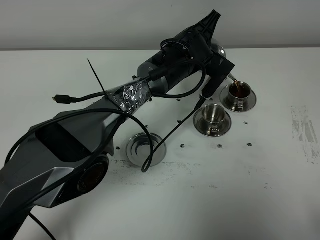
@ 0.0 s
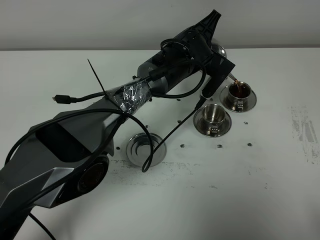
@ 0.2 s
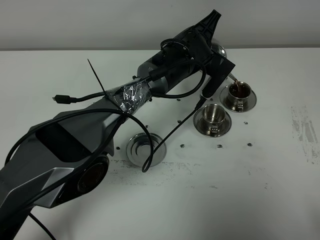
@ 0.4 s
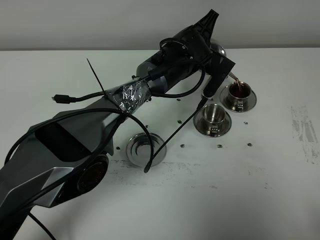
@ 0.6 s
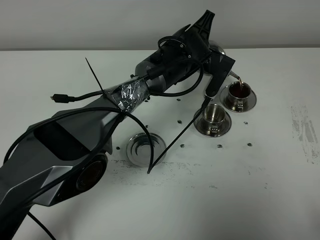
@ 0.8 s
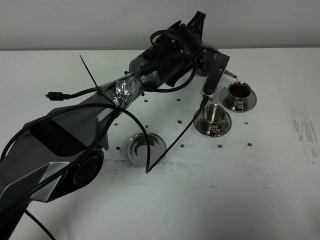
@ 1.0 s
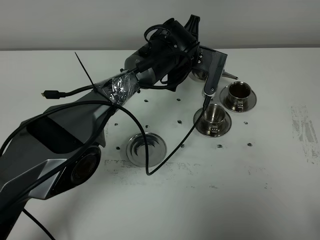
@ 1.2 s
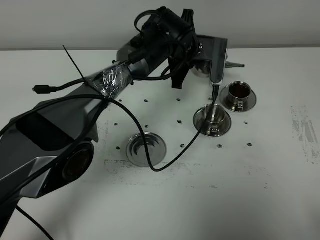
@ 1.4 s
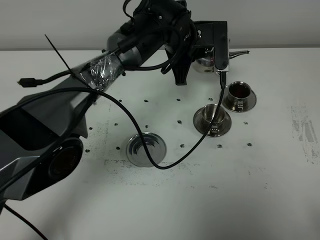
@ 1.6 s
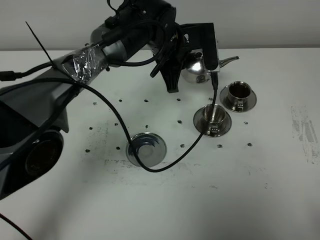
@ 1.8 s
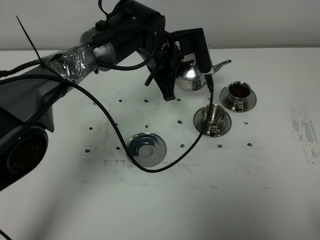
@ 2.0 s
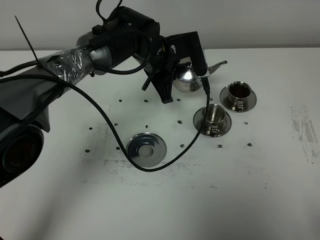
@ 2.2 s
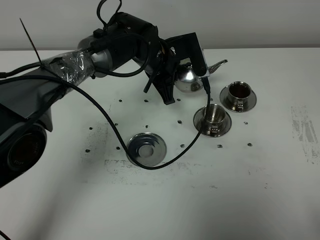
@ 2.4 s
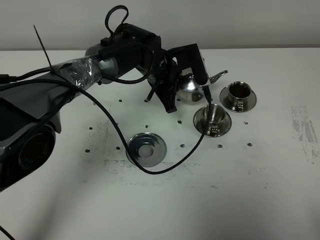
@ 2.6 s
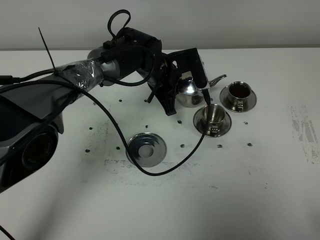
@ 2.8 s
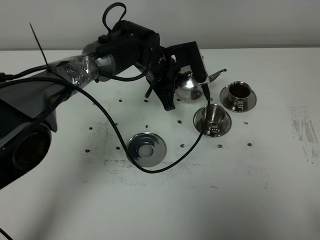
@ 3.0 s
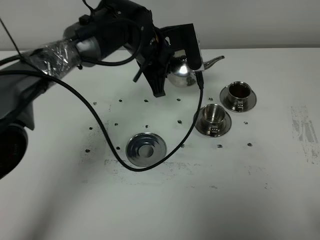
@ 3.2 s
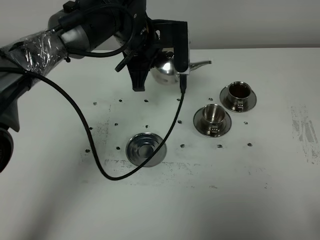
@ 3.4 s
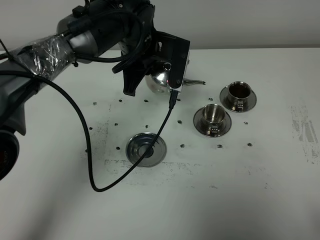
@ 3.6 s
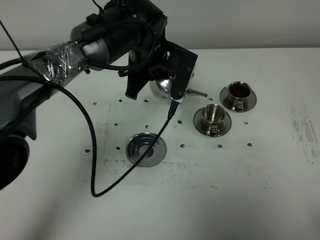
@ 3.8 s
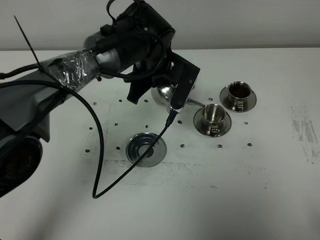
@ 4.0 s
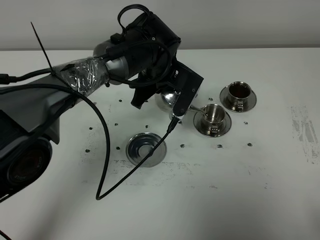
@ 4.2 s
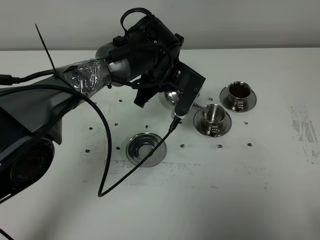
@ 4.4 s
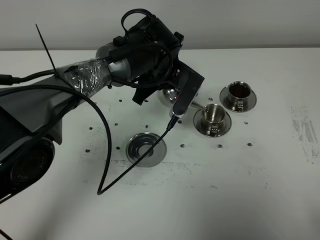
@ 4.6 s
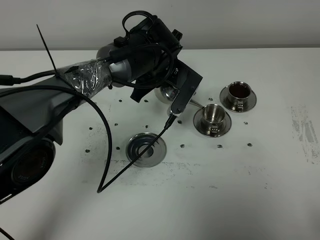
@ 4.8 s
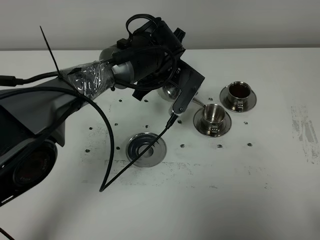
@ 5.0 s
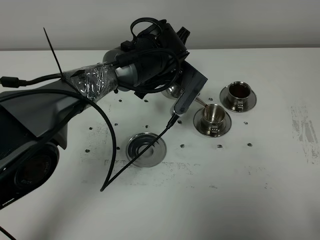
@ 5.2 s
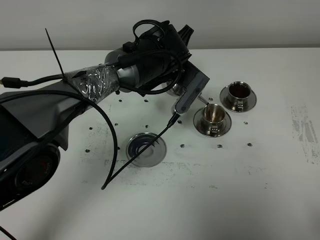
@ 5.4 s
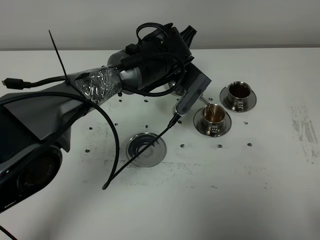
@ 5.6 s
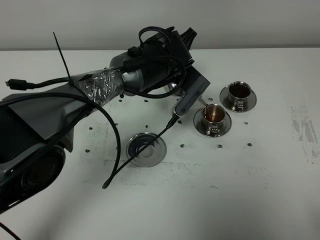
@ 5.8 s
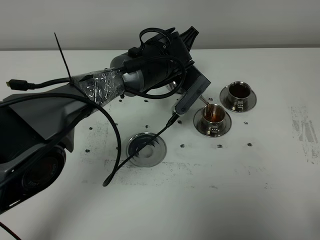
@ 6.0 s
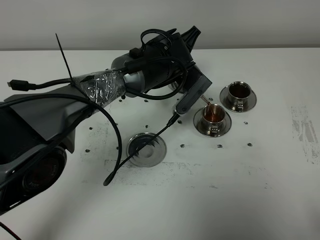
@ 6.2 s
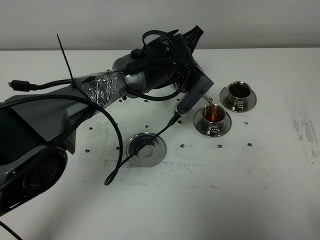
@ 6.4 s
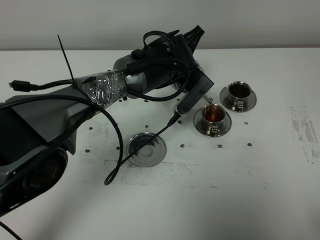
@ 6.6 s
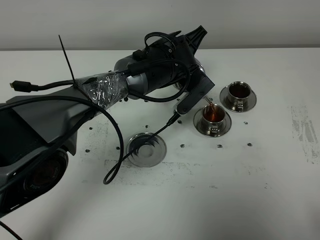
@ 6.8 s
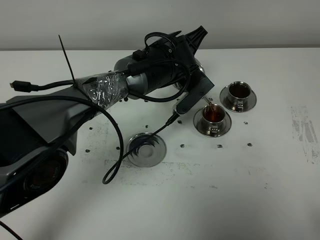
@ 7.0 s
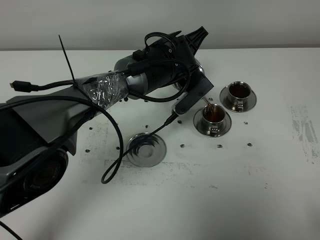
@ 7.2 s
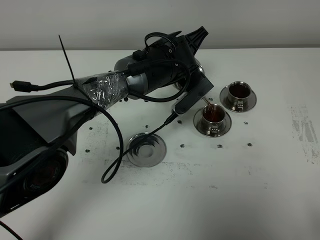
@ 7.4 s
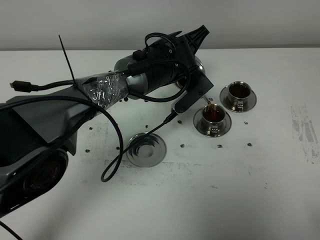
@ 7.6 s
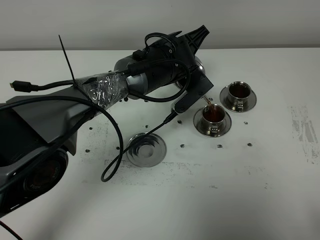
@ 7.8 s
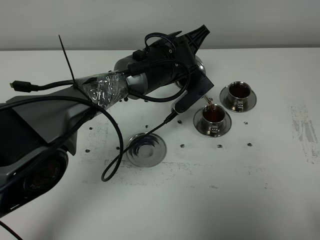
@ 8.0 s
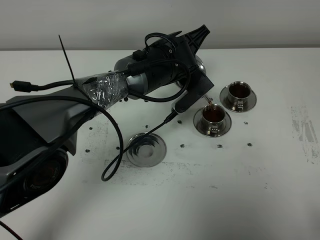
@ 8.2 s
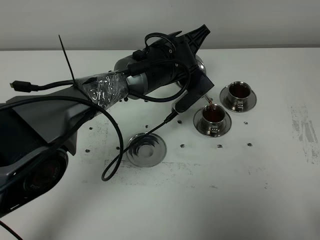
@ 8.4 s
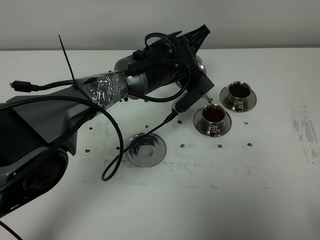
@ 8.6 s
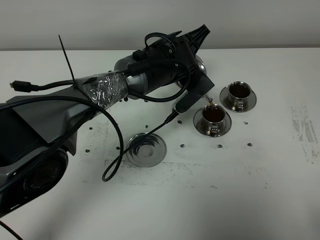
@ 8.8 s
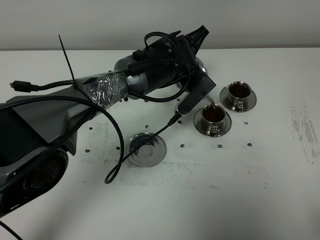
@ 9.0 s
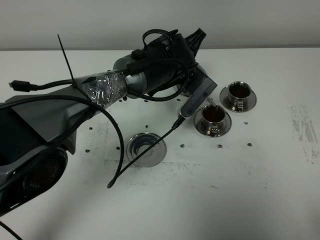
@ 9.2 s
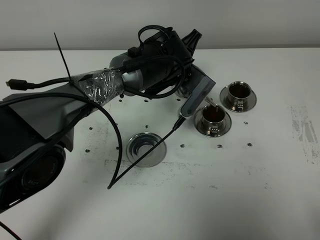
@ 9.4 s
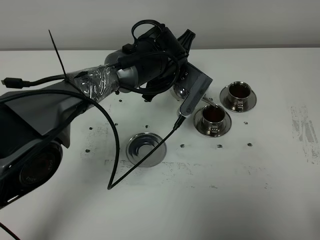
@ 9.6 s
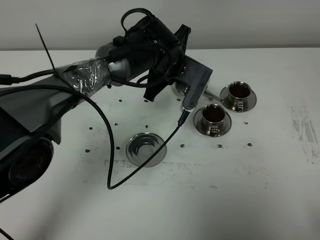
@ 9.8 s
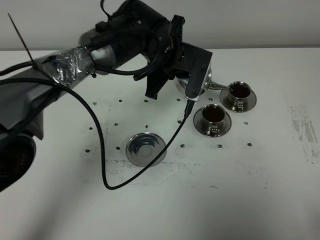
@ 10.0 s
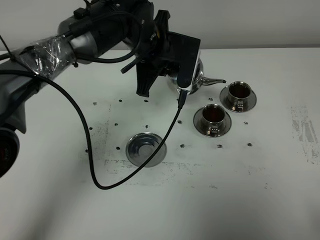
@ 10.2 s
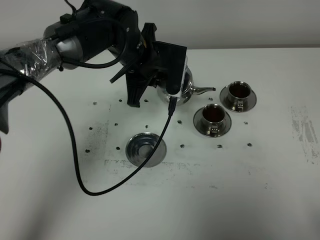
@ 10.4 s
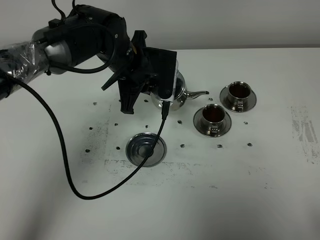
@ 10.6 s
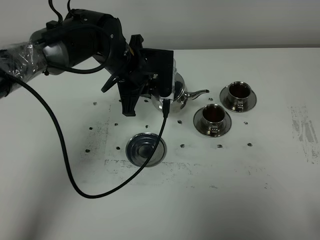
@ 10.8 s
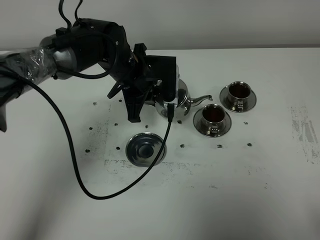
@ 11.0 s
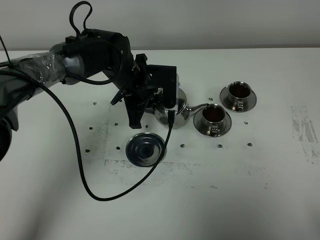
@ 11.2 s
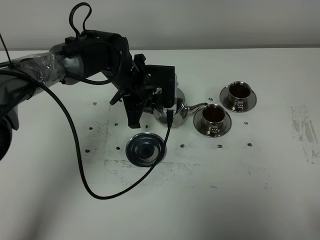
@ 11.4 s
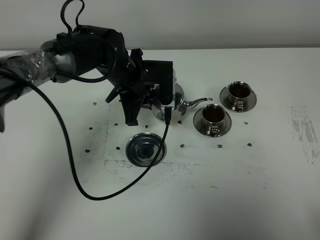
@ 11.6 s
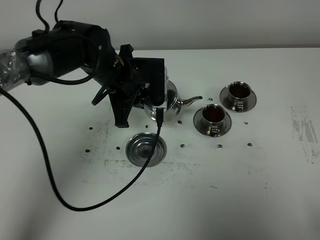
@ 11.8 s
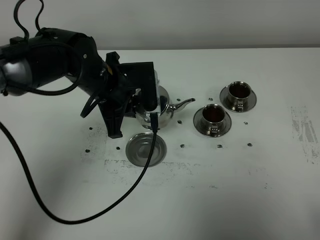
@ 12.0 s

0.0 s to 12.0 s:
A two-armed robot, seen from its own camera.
Task of the whole recording: grasp the stainless steel teapot and pour the tea into the two stainless steel teacups one by one, put the stainless steel teapot back in its original place.
Step, 1.4 to 9.8 s: Pour tea into the teacup with the left gripper.
0.0 to 1.6 s: The left gripper moves roughly 5 cm.
1.6 to 3.0 s: The left gripper changes place by approximately 5 cm.
4.4 to 6.0 s: The grippers move only a little.
6.0 to 7.6 s: There are only small adjustments of the grippers.
7.6 to 9.0 s: Both grippers stay put.
9.0 to 10.4 s: The left gripper is displaced to the left by some 10 cm.
10.4 to 12.0 s: The left gripper goes approximately 10 cm backward and to the left.

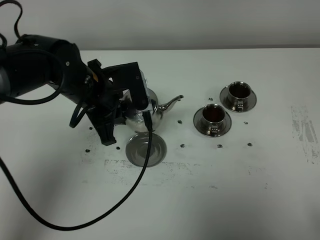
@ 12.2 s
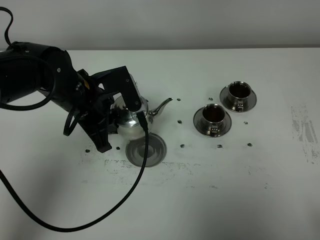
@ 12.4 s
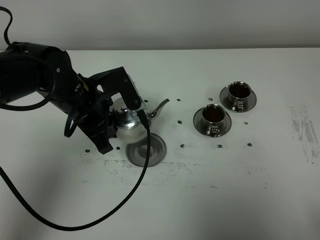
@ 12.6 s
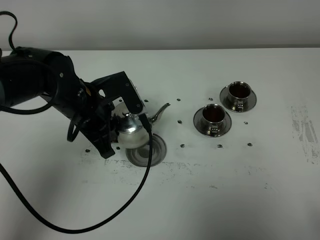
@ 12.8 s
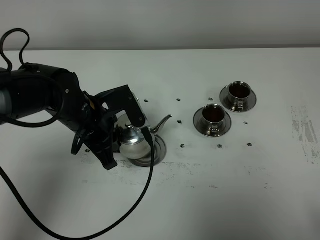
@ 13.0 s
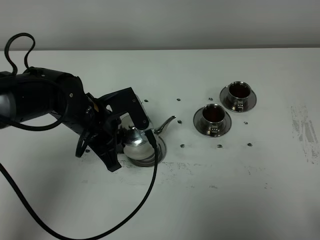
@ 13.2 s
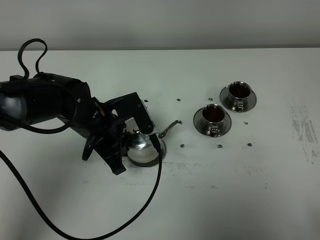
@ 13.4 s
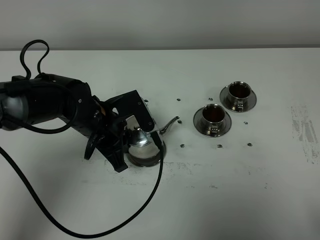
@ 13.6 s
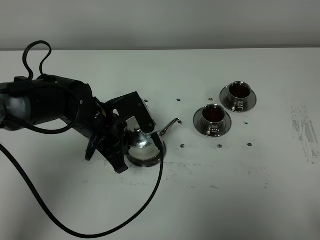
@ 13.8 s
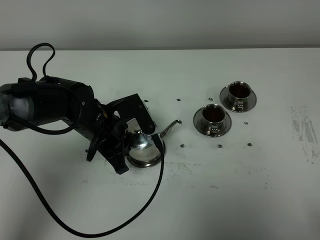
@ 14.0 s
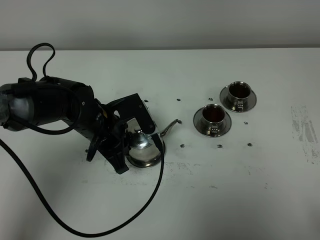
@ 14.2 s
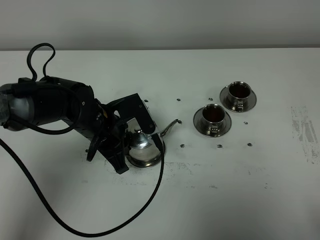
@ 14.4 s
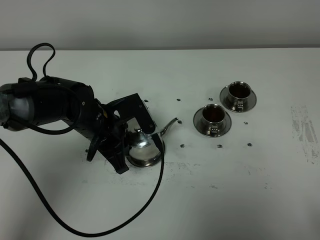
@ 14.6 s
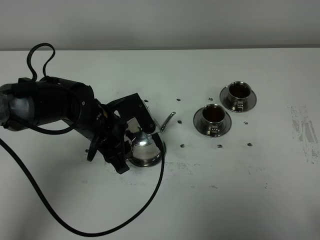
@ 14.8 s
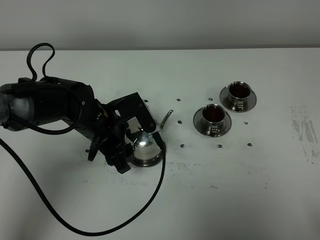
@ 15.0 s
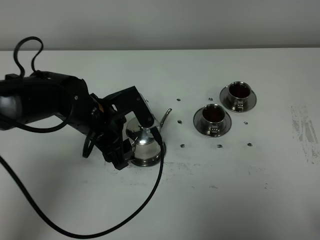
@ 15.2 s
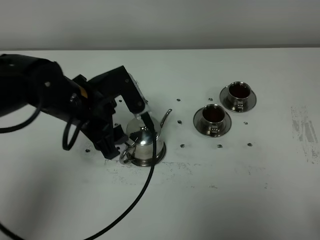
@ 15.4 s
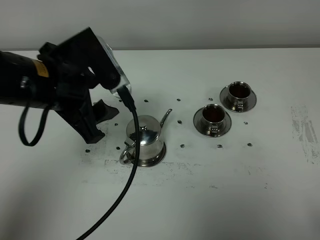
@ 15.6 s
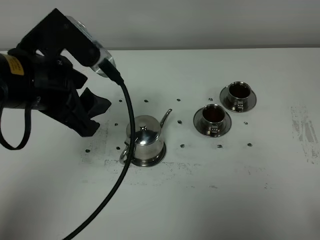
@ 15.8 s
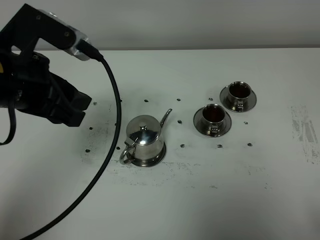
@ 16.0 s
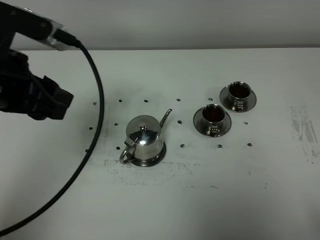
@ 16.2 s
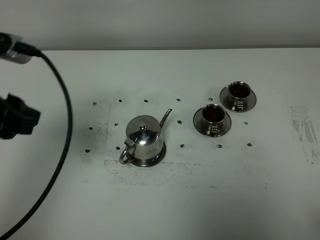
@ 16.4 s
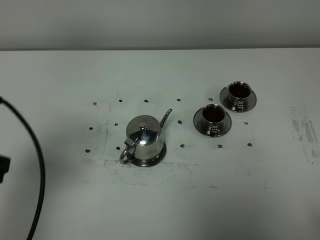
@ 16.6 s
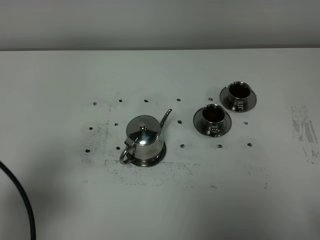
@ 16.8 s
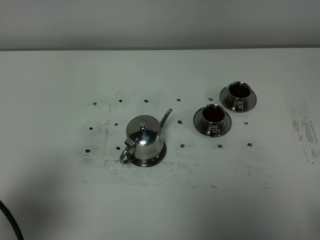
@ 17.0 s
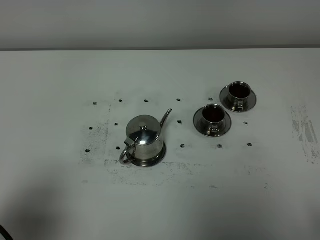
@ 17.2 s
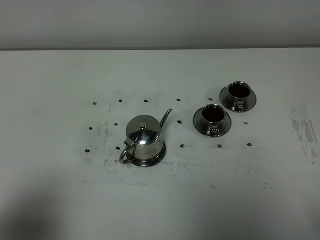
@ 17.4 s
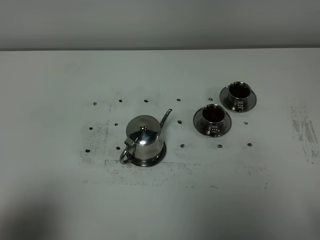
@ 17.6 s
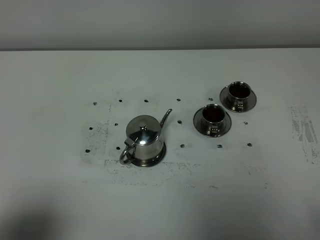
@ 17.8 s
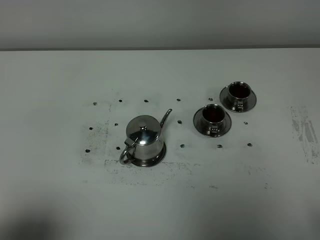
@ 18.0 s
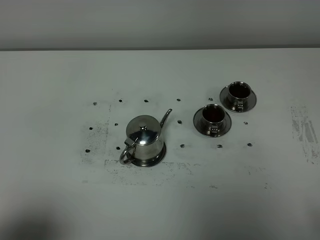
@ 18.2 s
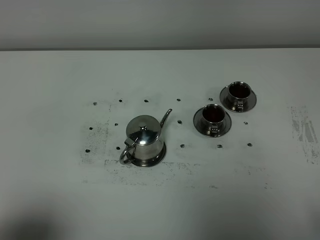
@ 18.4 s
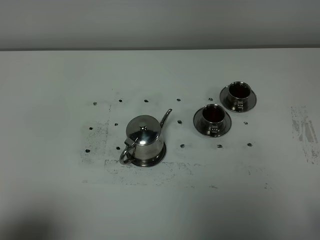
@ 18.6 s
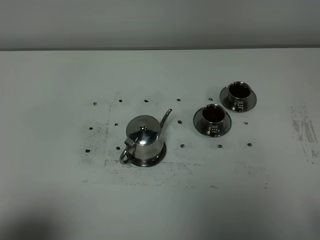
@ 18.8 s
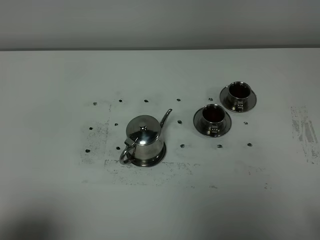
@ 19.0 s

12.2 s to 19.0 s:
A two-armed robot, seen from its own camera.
Task of the whole recording: grasp the stainless steel teapot and pour the tea into the two stainless steel teacups one by one, put the stainless steel teapot back in its original place.
12.2 to 13.6 s: The left gripper goes about 5 cm downward.
13.6 to 15.0 s: The left gripper opens.
15.0 to 16.2 s: The left gripper shifts about 25 cm upward, to the left and backward.
16.2 to 17.6 s: The left gripper travels backward by approximately 20 cm.
